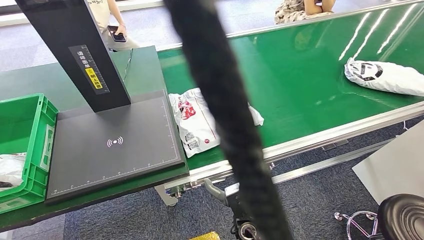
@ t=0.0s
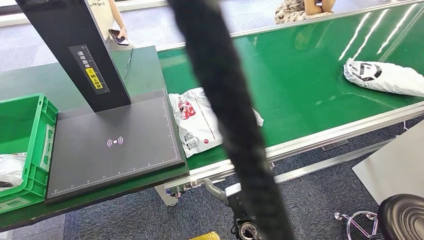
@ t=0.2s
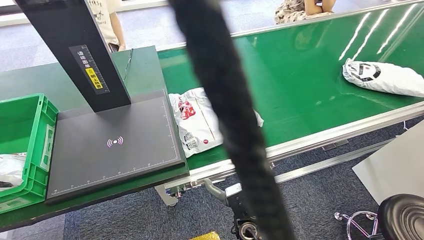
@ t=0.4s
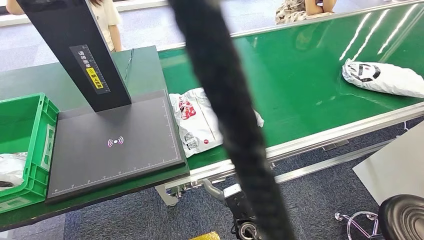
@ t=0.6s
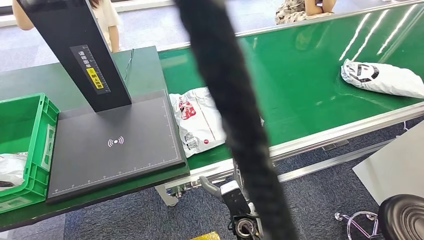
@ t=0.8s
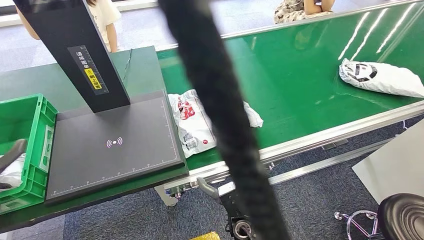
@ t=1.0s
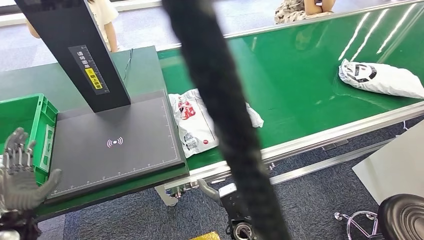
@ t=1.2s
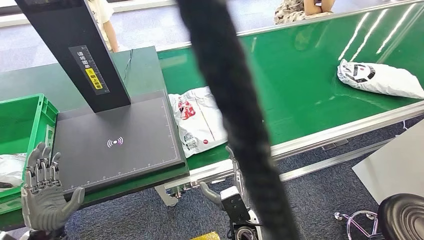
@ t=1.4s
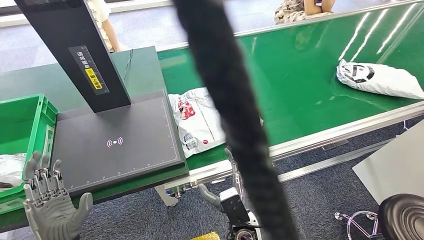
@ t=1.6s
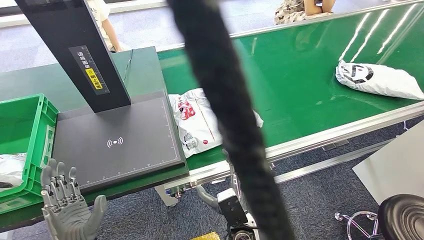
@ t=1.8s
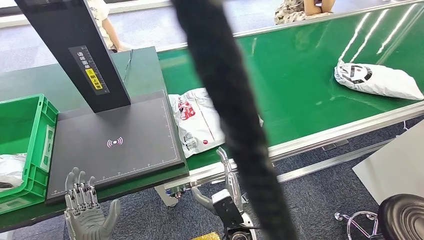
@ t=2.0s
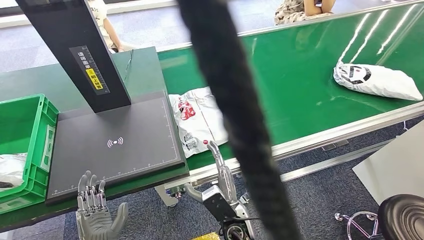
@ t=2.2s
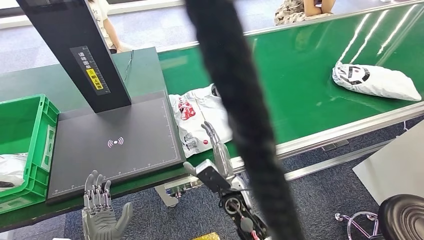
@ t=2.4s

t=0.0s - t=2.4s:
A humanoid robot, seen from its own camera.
Step, t=0.0s - t=2.4s: Place the package into the parcel locker.
t=0.0s - t=1.2s: The left hand travels to the right and downward by some 25 cm.

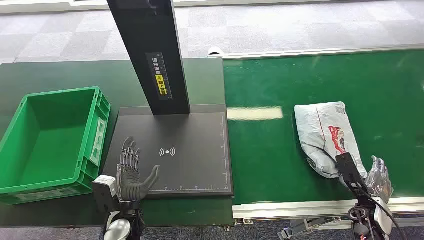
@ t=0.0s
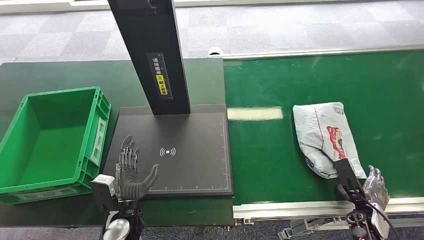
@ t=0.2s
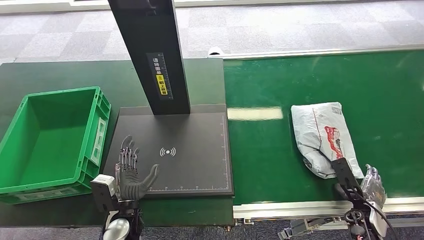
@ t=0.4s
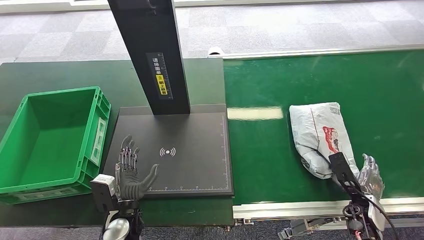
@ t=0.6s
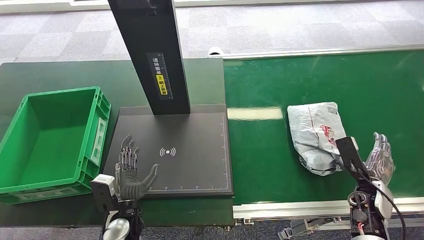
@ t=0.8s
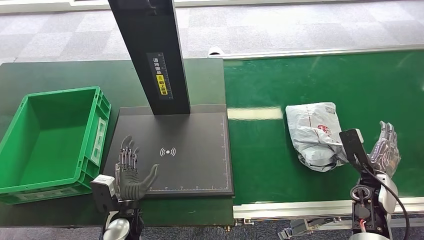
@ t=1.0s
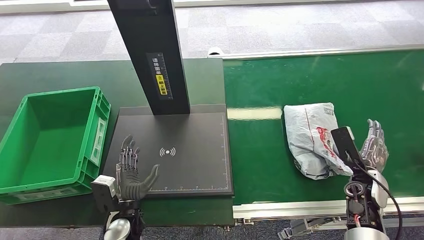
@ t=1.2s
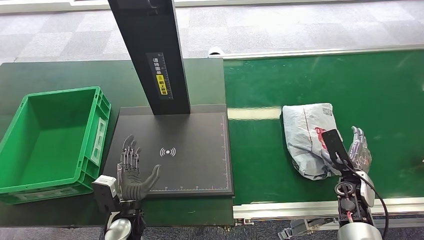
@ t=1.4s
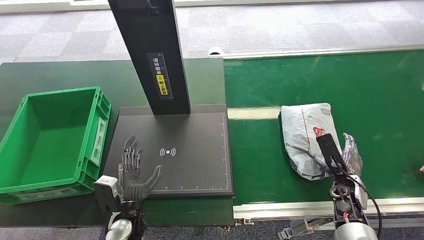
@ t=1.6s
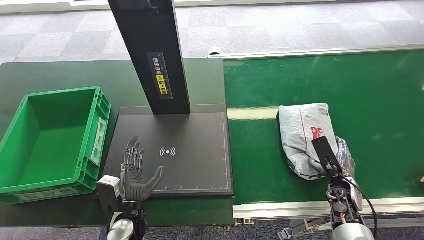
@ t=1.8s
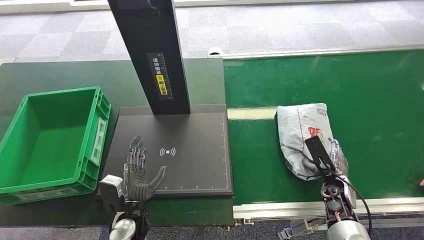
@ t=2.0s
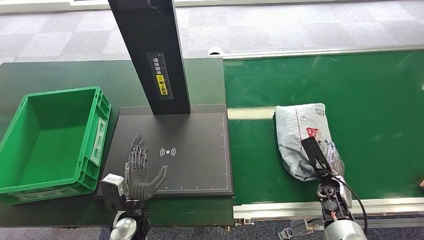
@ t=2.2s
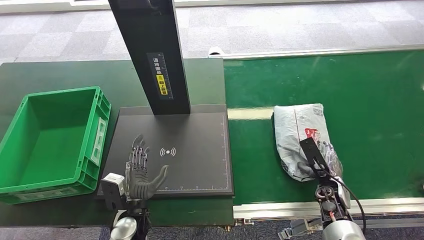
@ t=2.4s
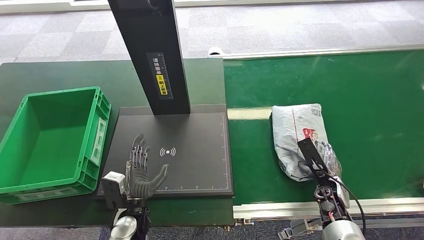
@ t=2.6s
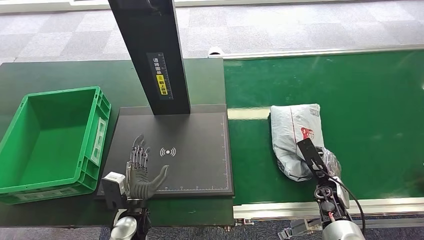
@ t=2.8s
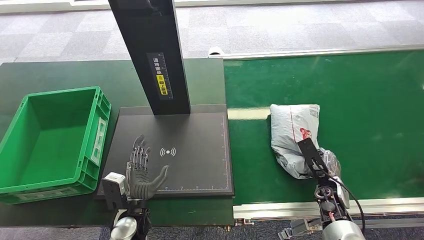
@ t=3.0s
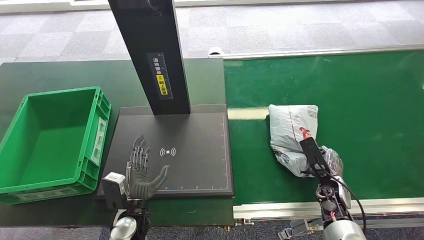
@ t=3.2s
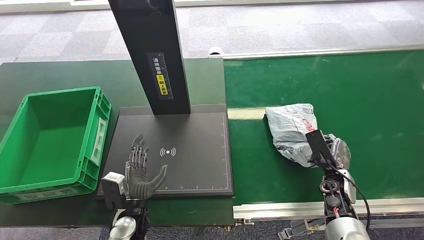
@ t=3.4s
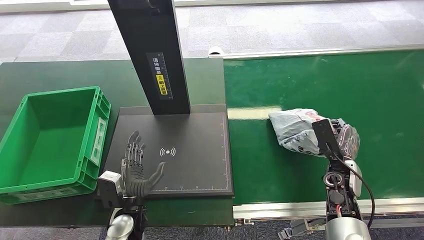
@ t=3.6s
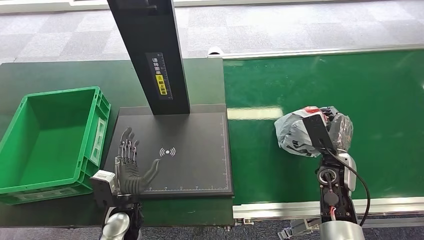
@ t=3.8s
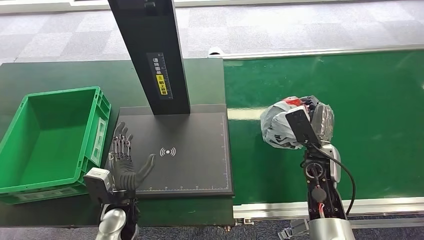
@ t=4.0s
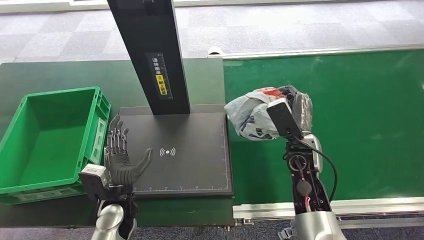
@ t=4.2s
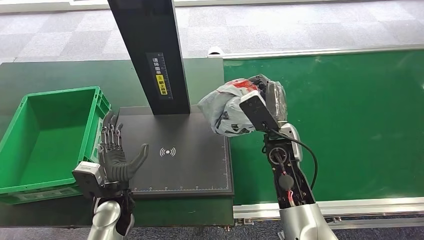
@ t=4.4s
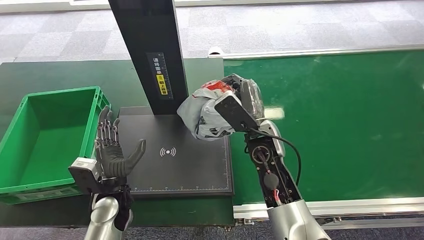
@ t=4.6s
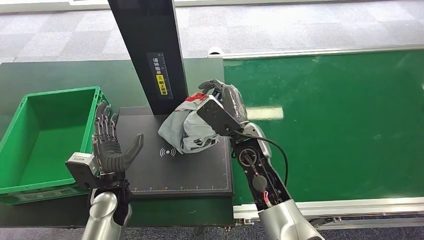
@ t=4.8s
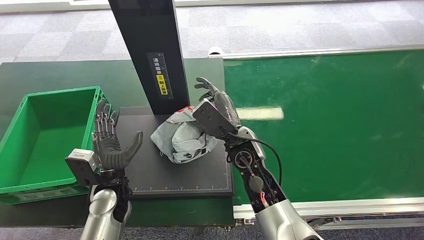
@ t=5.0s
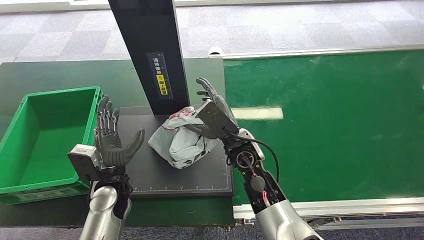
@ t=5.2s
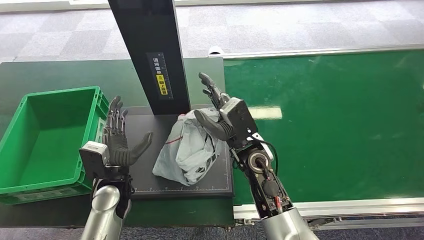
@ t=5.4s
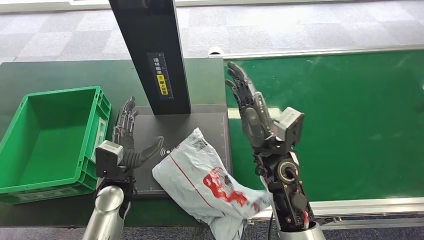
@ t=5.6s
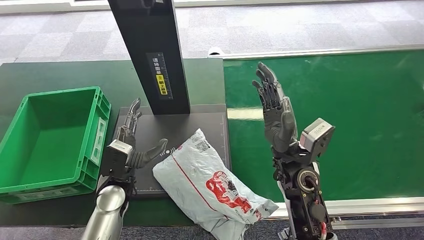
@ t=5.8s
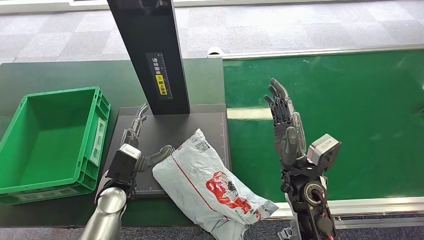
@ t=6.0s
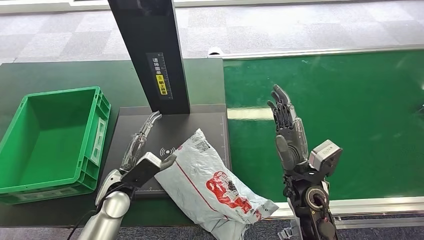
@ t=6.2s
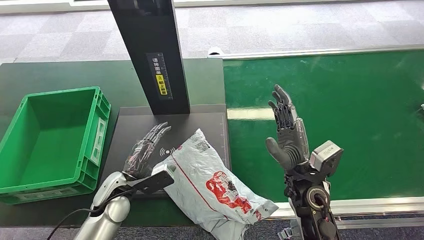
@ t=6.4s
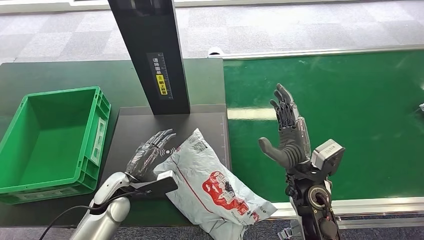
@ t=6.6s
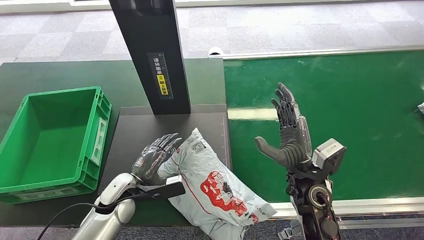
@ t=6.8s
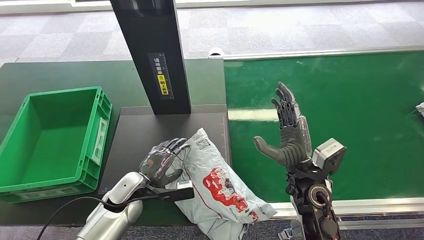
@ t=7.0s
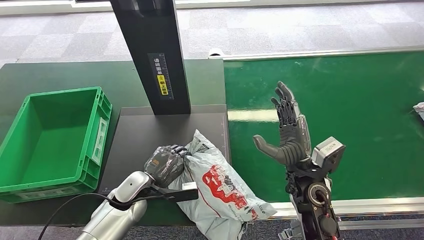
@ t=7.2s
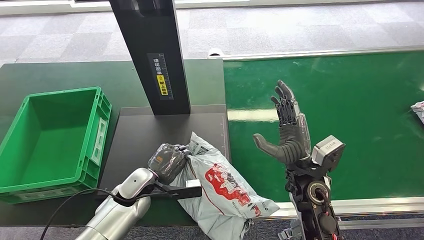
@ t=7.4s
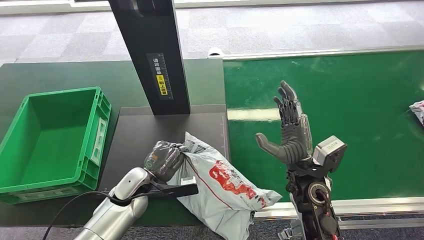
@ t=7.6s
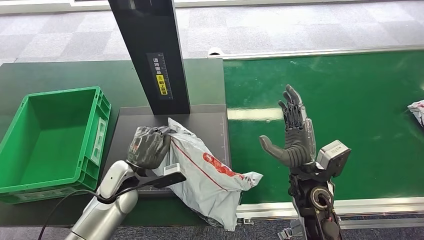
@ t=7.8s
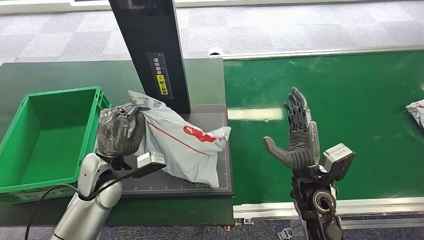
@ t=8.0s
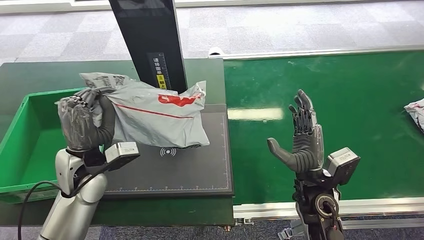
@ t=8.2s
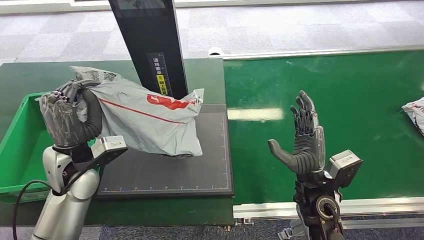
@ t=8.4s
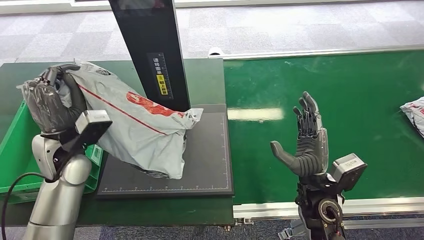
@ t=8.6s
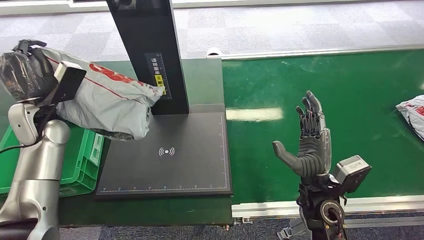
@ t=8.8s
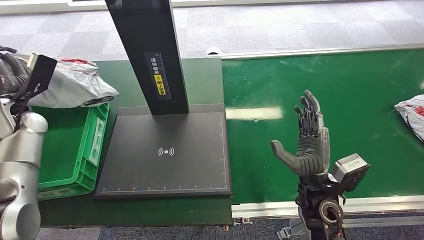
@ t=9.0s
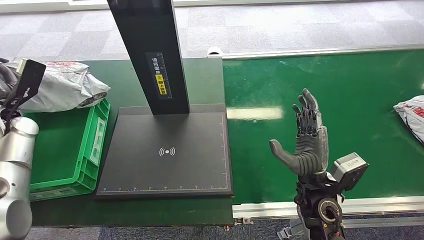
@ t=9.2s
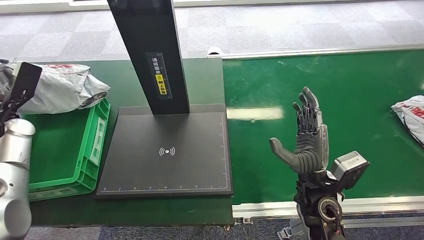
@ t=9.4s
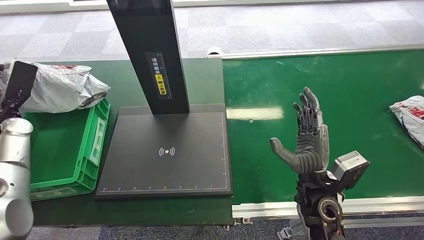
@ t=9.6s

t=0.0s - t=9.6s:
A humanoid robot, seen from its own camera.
Step, t=0.0s - t=4.0s: Pick up the package from the conveyor belt.
Step, t=4.8s - t=6.2s: Place the package onto the inbound machine.
Step, t=7.0s - t=8.6s: Pick up the package from the inbound machine.
t=1.6s - t=3.2s: The hands move only a little.

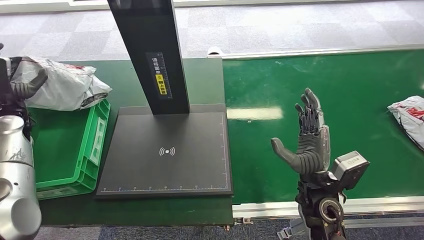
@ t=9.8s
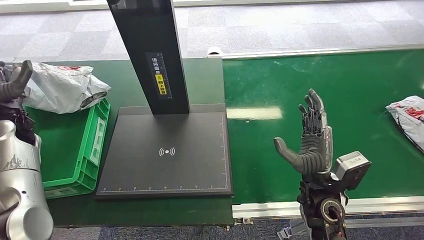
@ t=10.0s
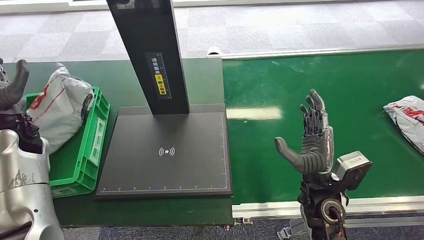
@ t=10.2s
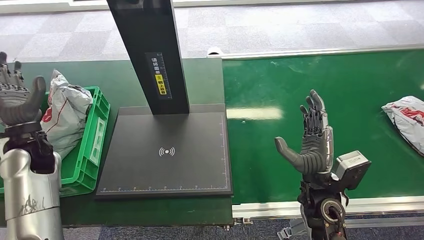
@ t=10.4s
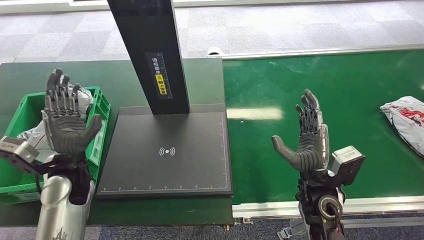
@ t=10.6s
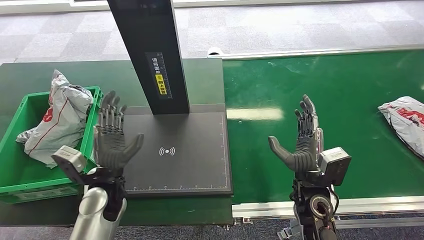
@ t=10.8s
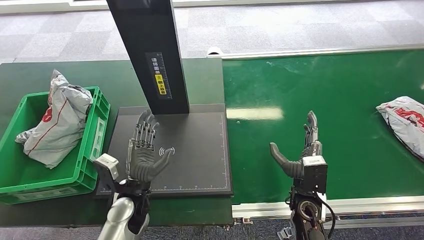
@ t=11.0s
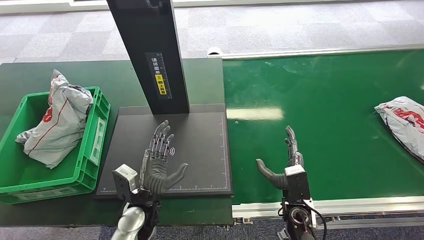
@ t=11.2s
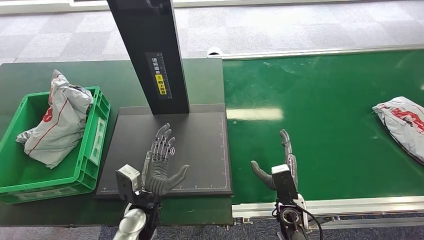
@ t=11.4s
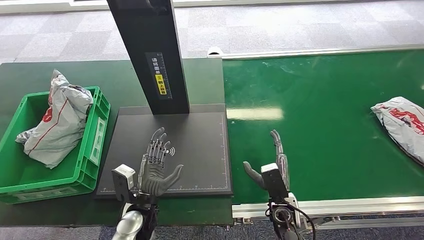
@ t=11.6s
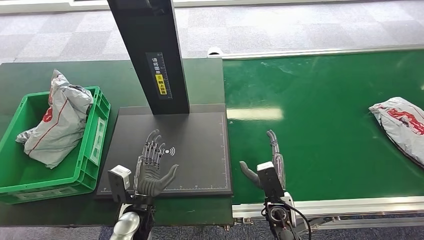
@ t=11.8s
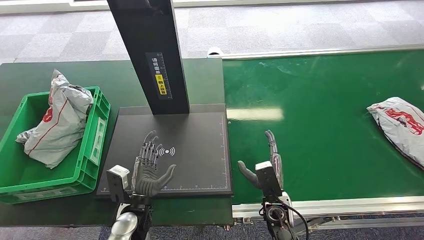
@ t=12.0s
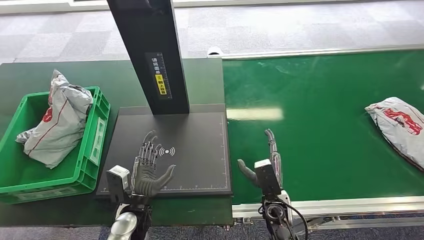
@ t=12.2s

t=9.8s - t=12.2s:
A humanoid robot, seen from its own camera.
Step, t=9.8s - t=12.0s: Place the package into the parcel locker.
t=11.0s - t=12.2s: The right hand moves downward and to the left, roughly 10 cm. Meanwhile the left hand moves about 5 cm.
